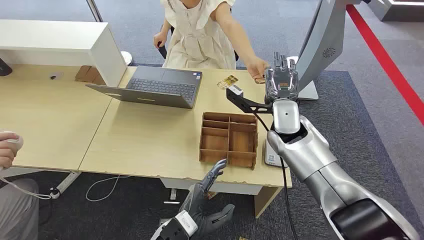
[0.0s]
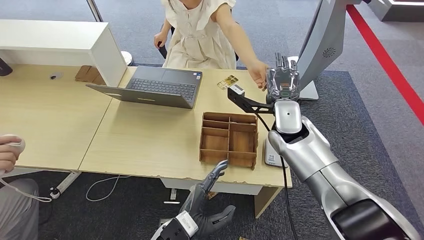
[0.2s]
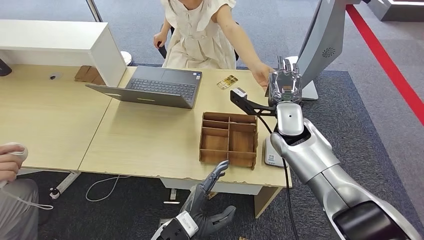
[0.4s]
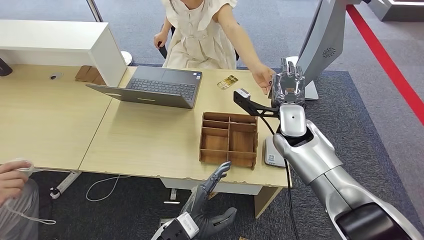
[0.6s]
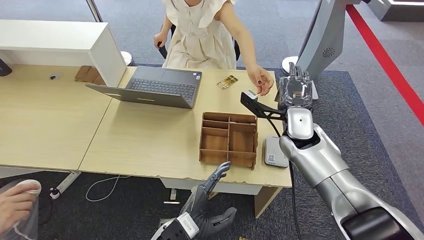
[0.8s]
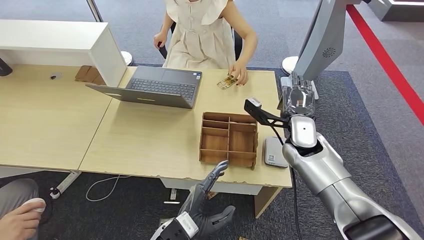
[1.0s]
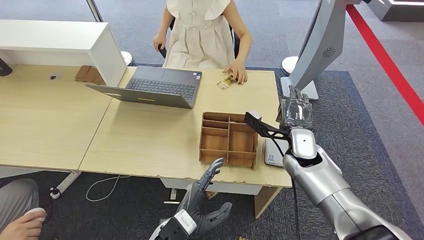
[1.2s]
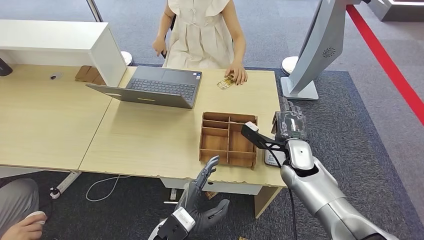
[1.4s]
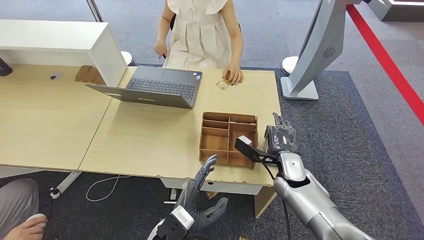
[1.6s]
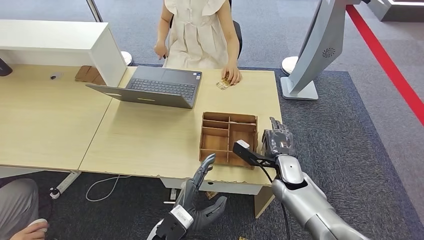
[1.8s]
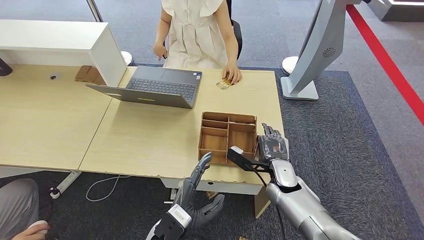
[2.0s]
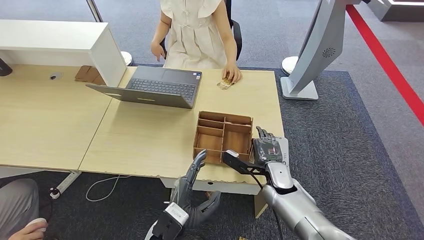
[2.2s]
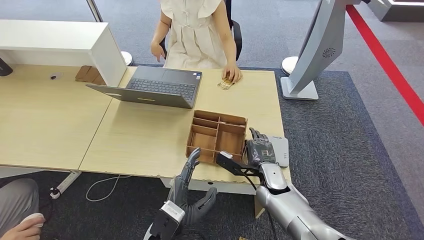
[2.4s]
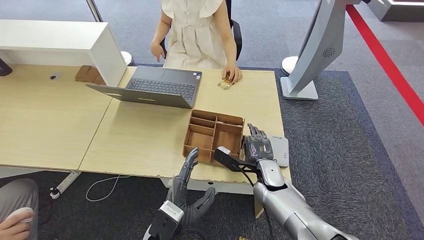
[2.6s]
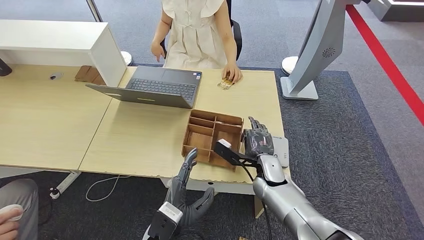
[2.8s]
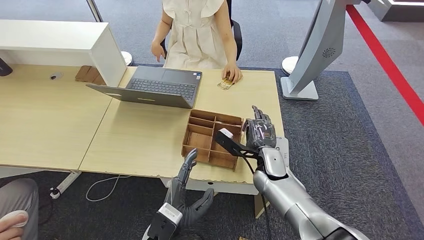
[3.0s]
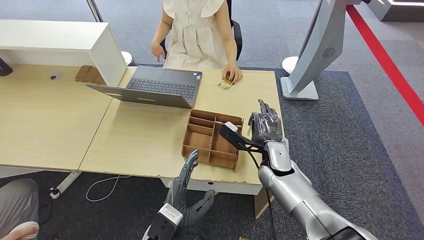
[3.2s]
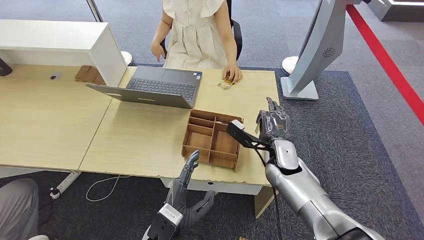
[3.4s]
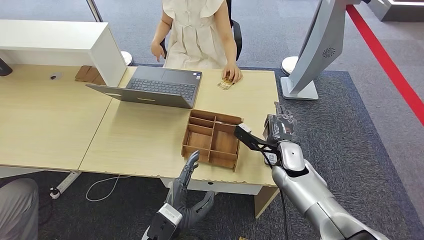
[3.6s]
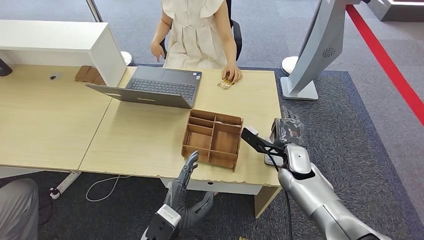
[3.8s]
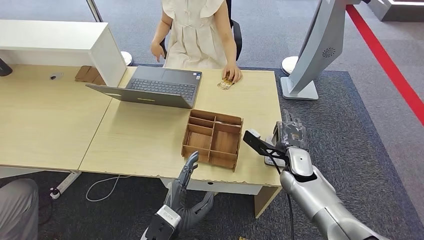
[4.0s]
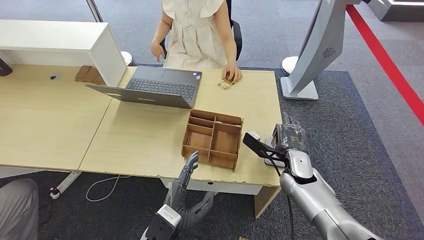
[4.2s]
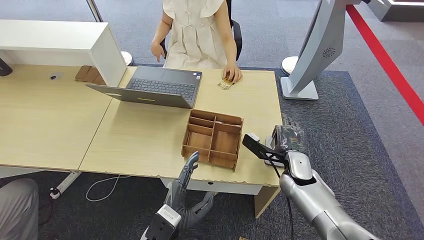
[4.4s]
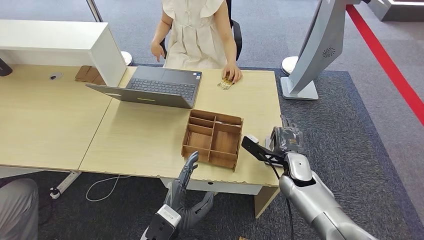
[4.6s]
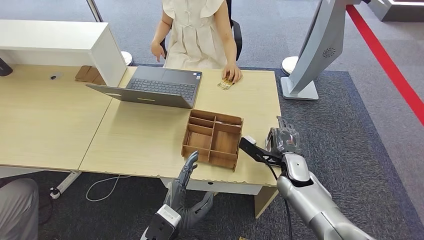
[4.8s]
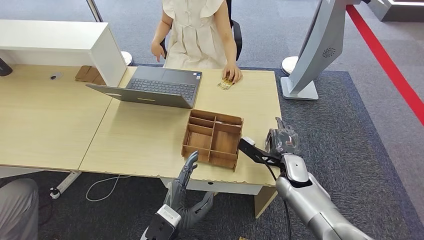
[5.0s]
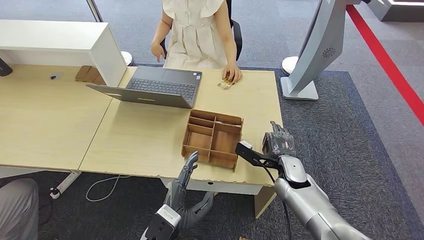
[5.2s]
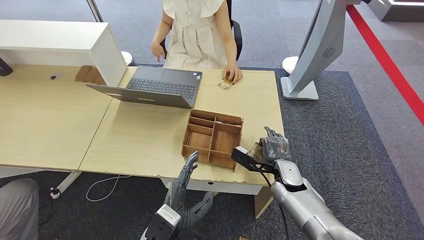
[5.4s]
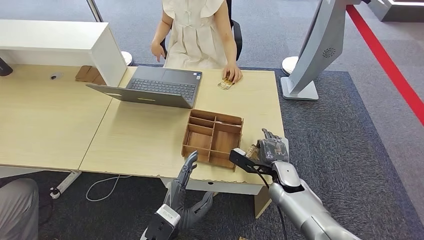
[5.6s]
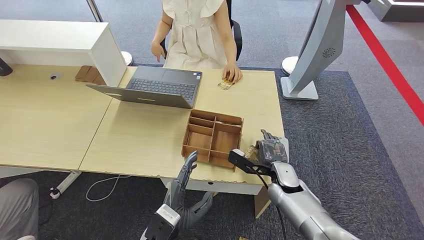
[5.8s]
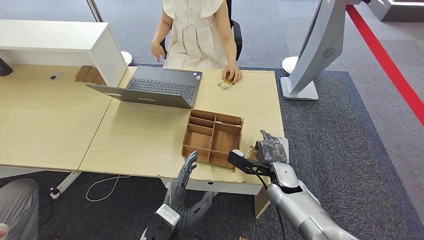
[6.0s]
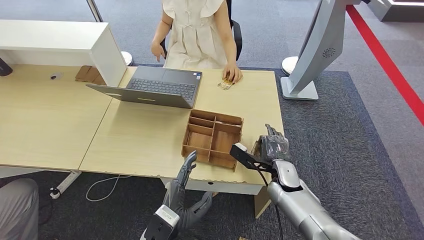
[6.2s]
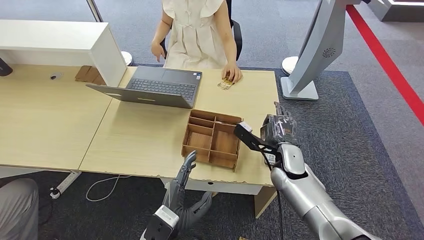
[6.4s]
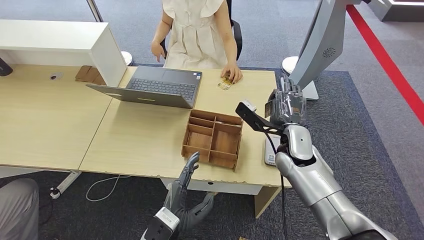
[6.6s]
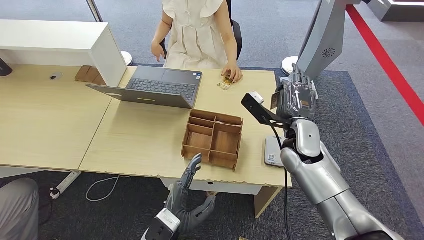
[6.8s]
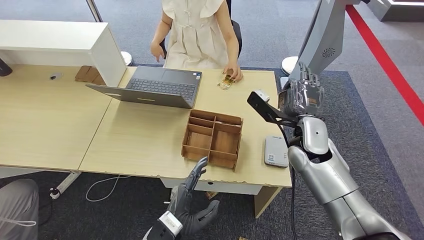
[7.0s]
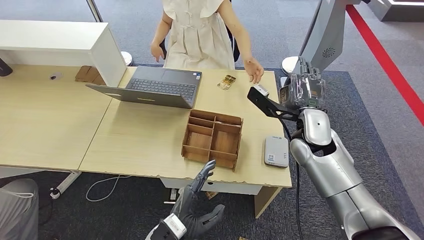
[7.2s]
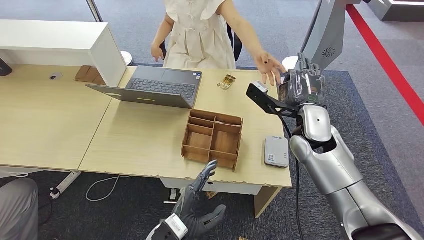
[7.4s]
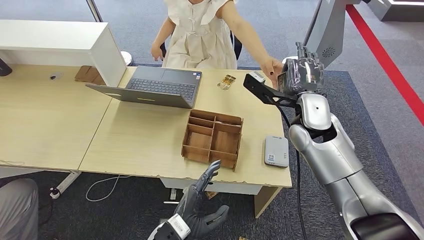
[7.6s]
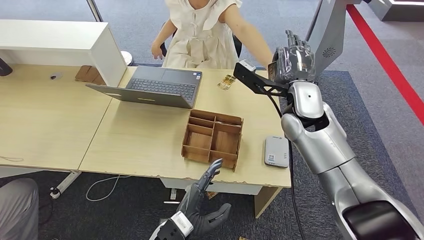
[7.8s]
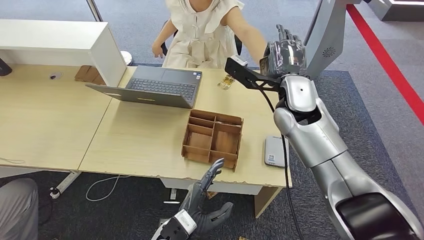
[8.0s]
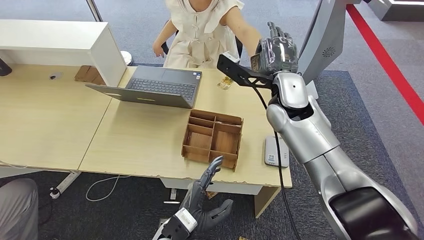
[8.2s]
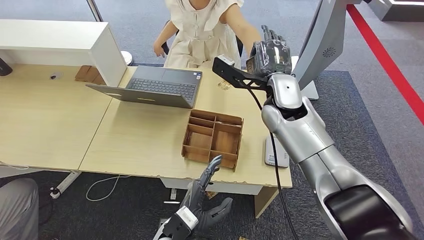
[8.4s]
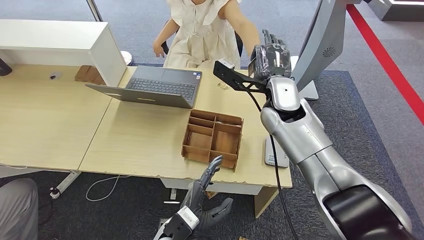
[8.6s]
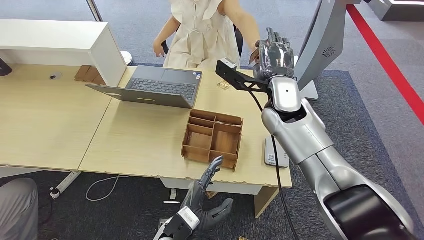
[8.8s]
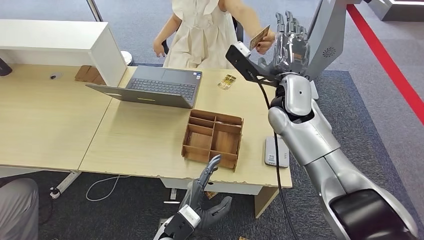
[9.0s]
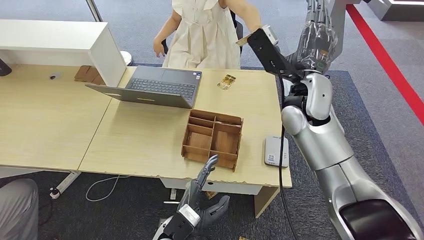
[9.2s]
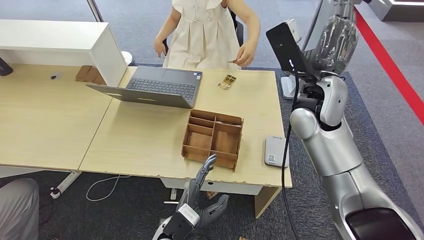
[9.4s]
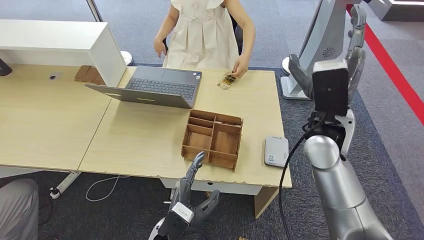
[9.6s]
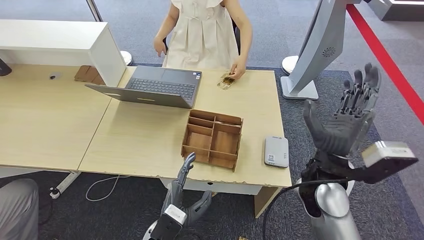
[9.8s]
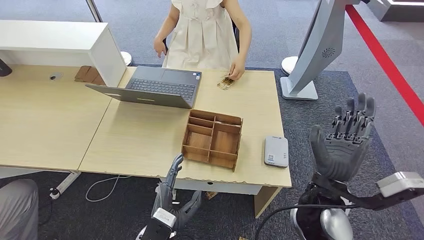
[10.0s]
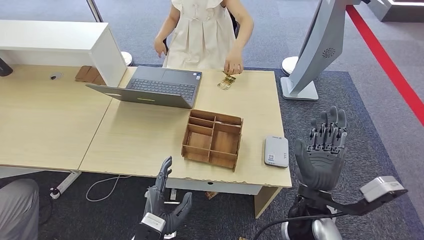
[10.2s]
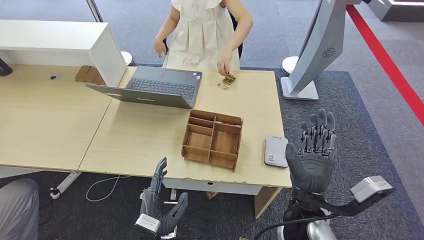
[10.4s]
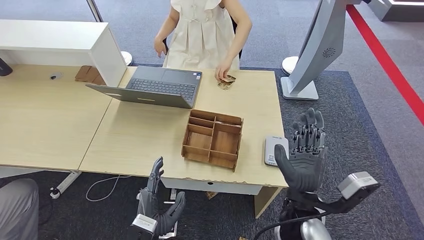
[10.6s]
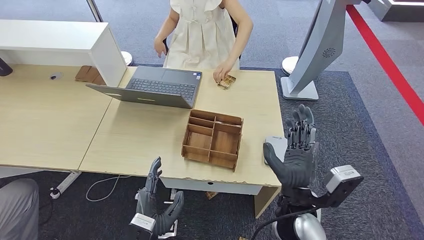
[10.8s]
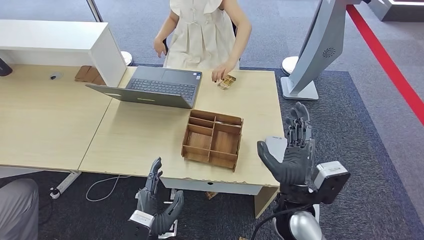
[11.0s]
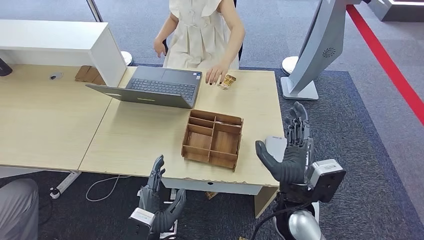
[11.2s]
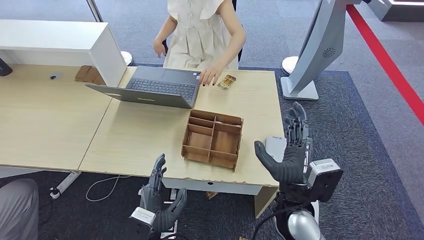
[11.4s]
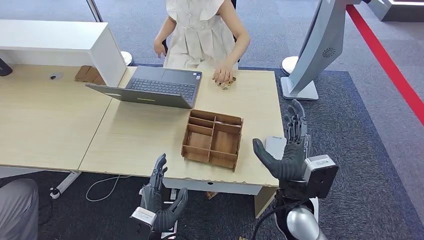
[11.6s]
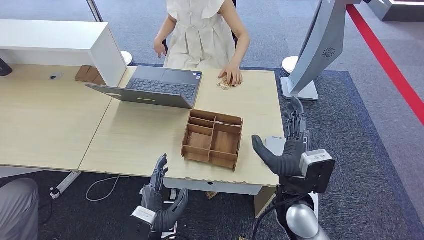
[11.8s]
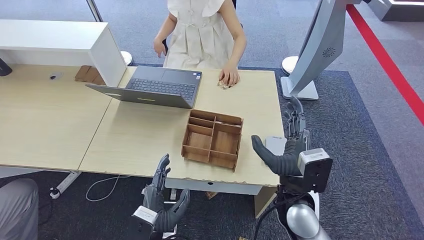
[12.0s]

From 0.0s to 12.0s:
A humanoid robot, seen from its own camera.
Step, from 0.0s to 1.2s: Take the ID card from the person's hand.
Step, from 1.4s to 6.6s: Place the ID card on the card reader.
Step, from 6.8s to 9.8s: Hand the ID card to the person.
From 1.6s to 3.0s: The right hand travels to the left by roughly 5 cm.
From 3.0s to 4.4s: The right hand travels to the right by approximately 5 cm.
From 4.4s to 6.0s: There are only small adjustments of the hands.
From 6.0s to 7.6s: The right hand moves upward, some 20 cm.
From 7.6s to 9.0s: The right hand shifts by some 5 cm.
From 9.0s to 10.4s: The right hand goes approximately 25 cm backward and downward, while the left hand shifts approximately 5 cm to the left.

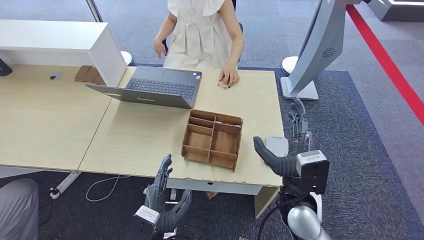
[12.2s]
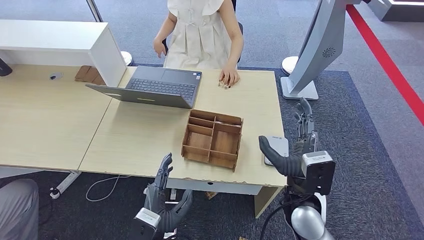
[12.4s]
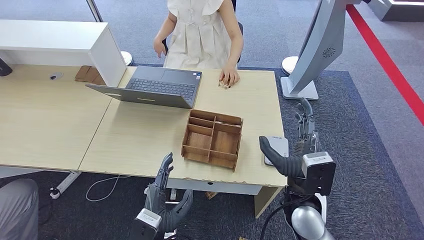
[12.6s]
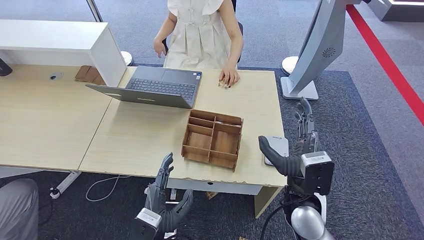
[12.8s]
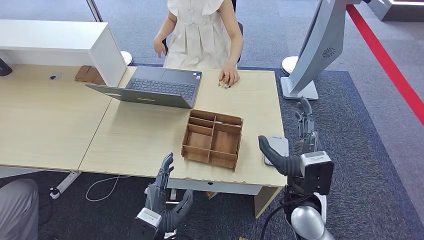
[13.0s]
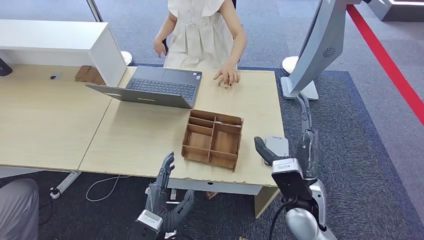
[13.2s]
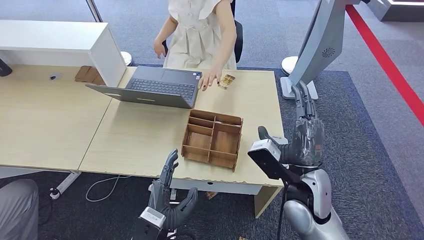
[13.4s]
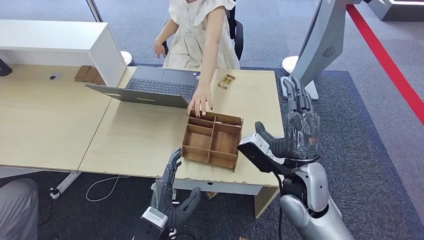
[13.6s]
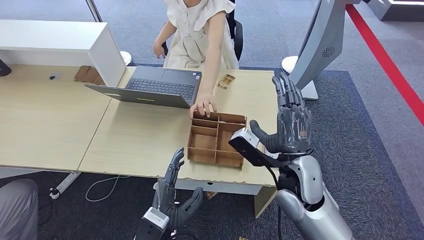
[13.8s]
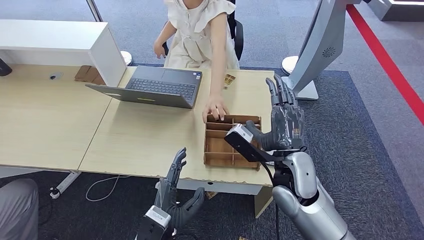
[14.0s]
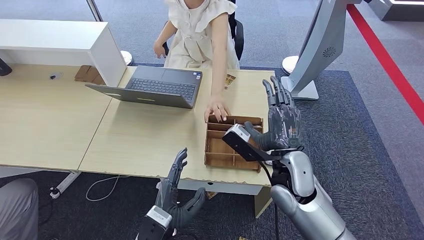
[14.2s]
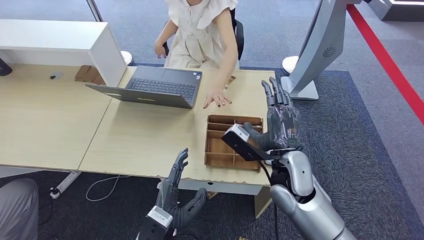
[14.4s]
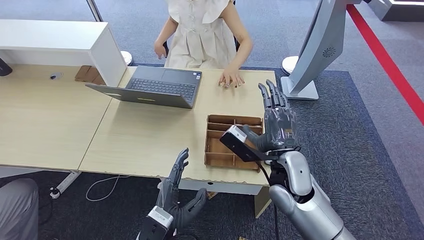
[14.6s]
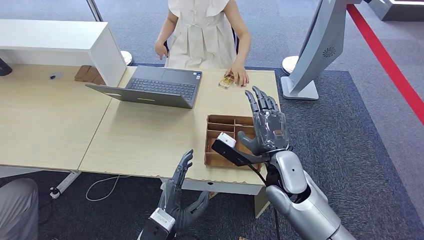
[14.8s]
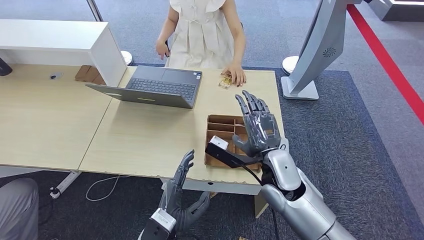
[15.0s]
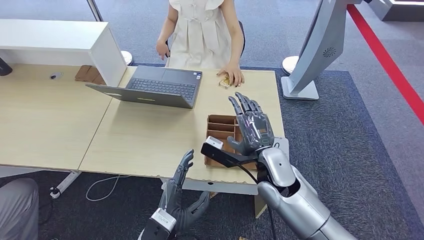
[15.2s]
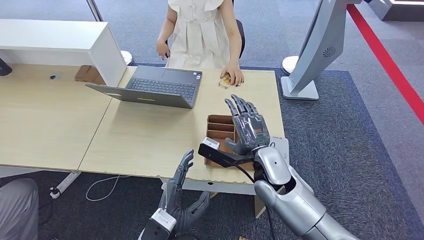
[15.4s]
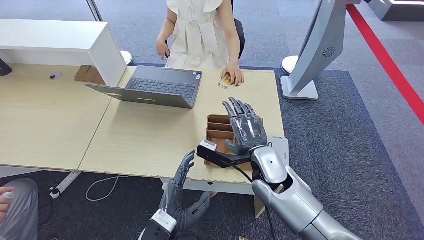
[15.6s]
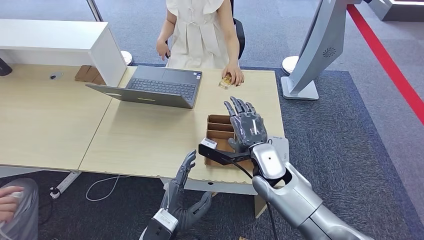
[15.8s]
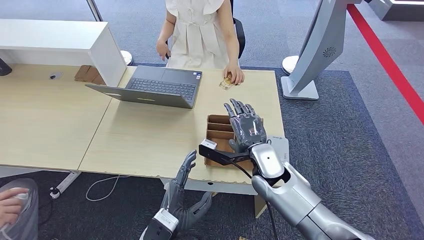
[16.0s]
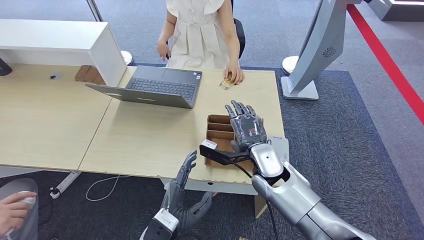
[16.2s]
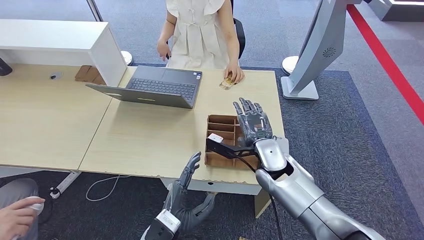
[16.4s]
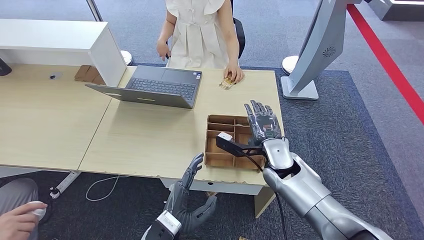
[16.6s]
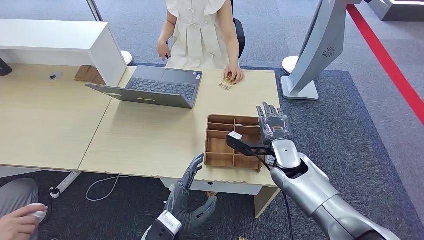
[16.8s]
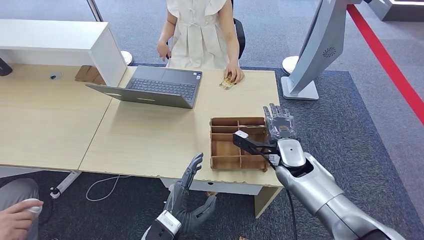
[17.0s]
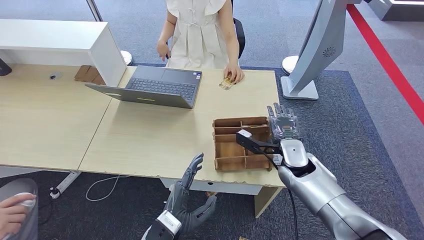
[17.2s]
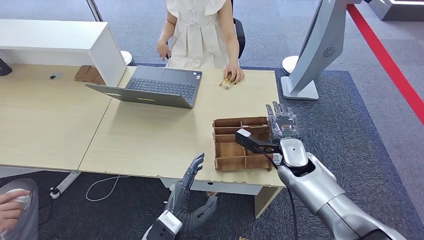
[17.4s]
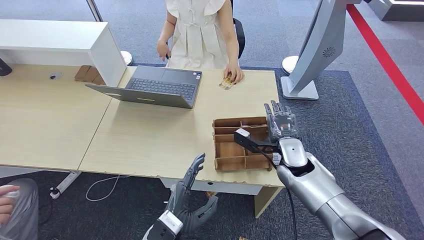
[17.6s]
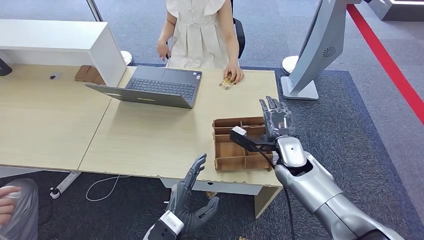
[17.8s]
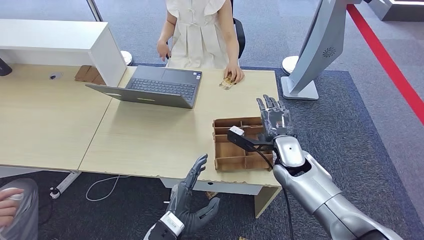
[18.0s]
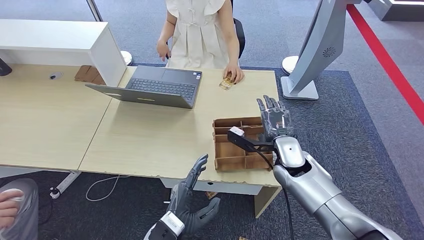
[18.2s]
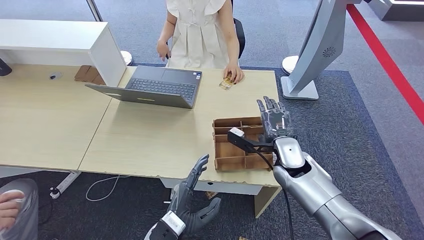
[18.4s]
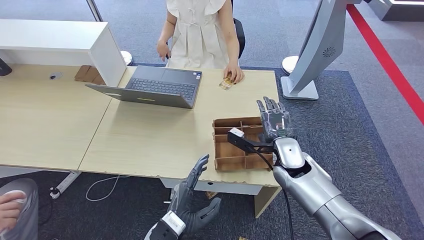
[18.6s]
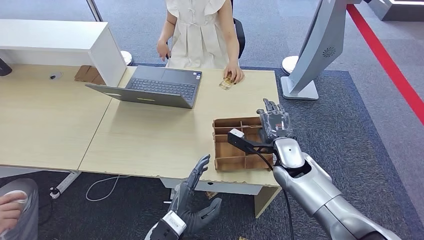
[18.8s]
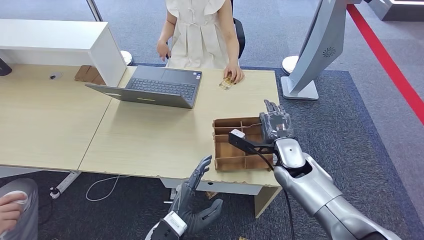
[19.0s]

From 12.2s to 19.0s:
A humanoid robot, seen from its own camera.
From 13.6s to 15.0s: The right hand shifts by approximately 5 cm.
From 15.0s to 16.2s: The right hand moves some 5 cm.
From 16.2s to 17.6s: The right hand goes some 10 cm to the right.
From 17.6s to 19.0s: The hands move only a little.
